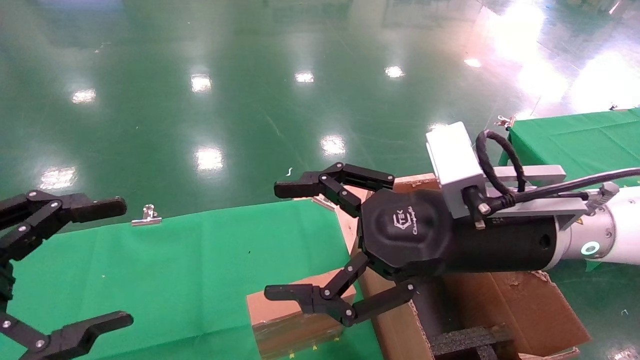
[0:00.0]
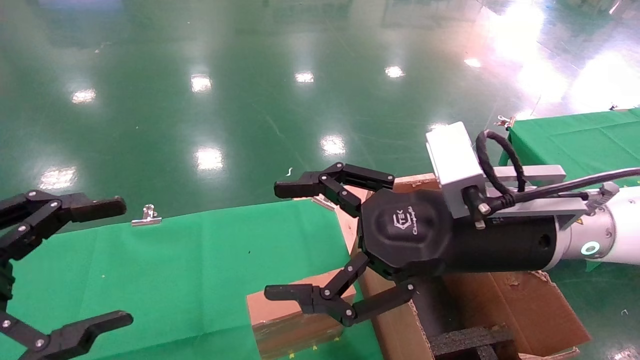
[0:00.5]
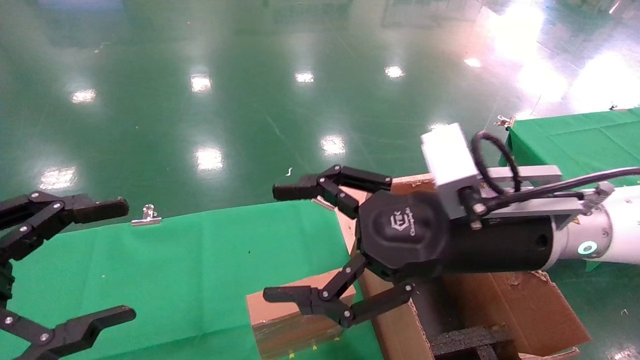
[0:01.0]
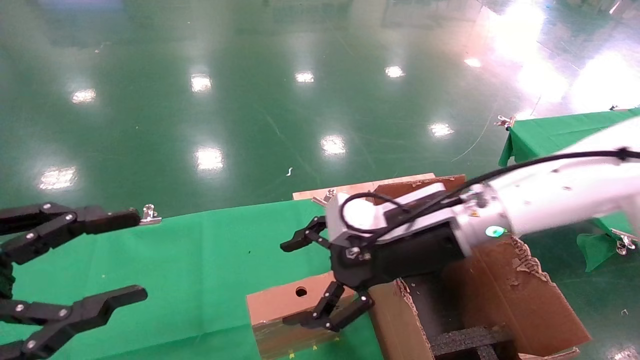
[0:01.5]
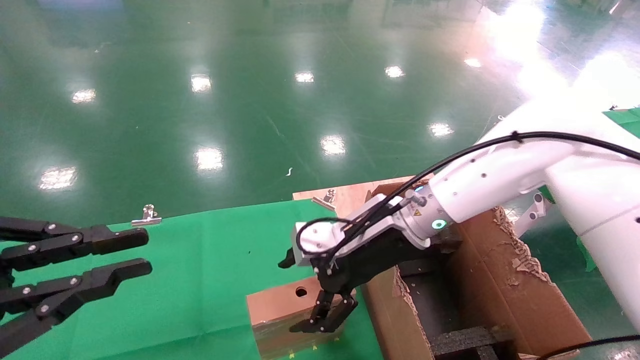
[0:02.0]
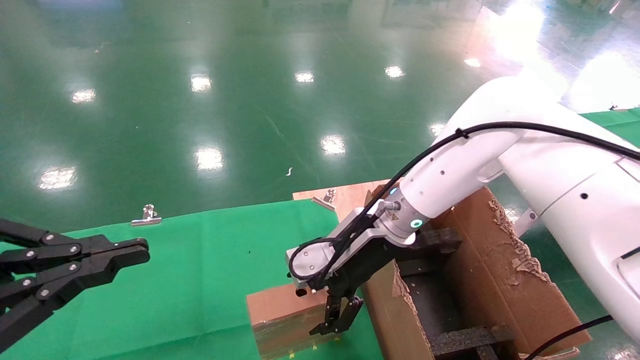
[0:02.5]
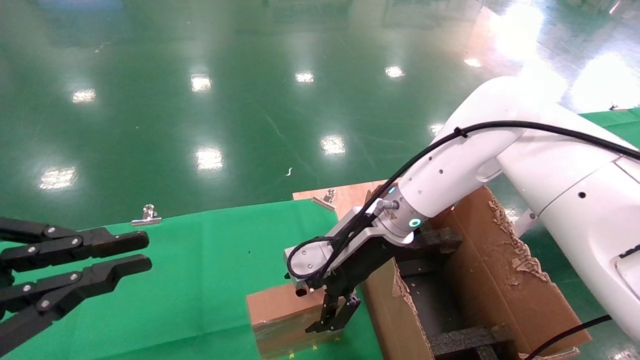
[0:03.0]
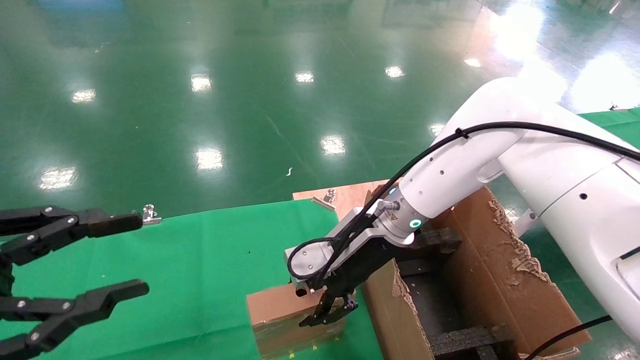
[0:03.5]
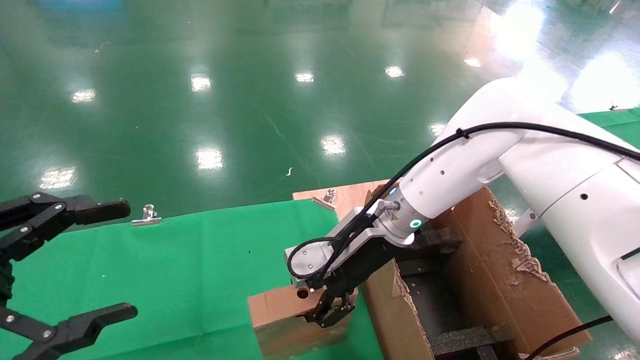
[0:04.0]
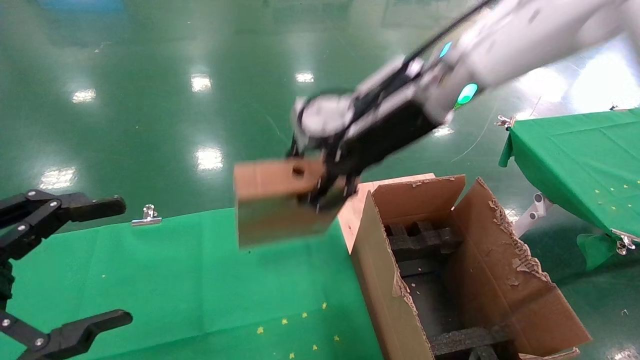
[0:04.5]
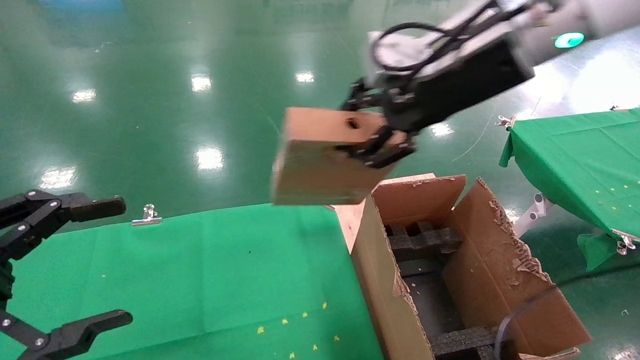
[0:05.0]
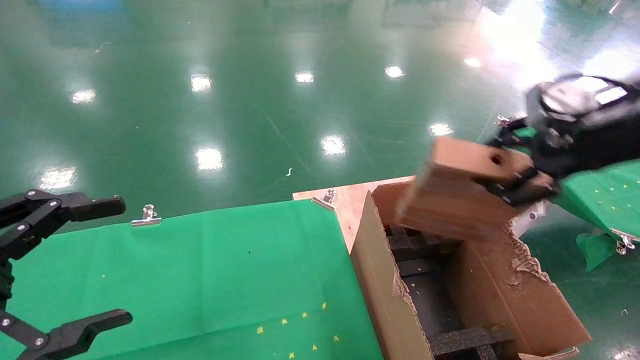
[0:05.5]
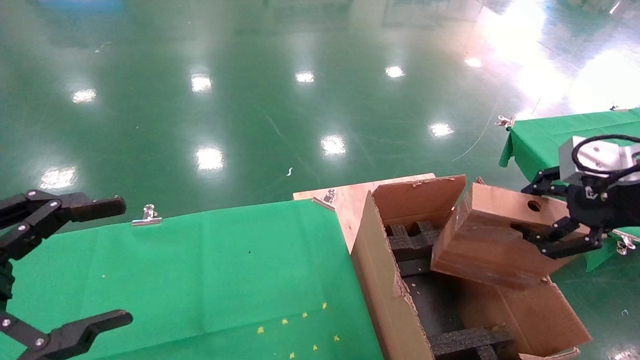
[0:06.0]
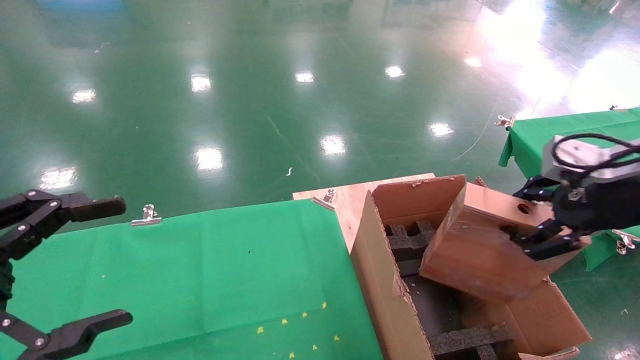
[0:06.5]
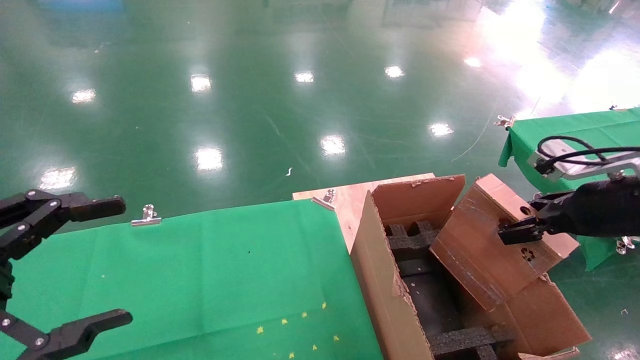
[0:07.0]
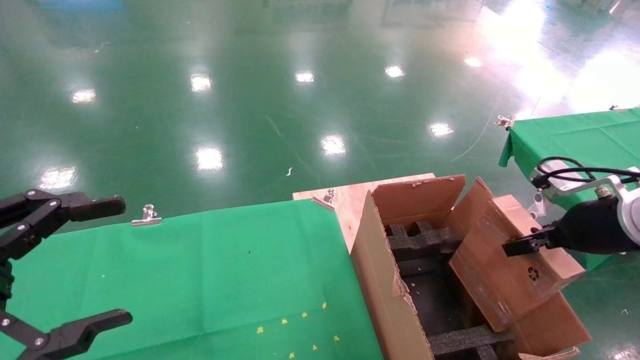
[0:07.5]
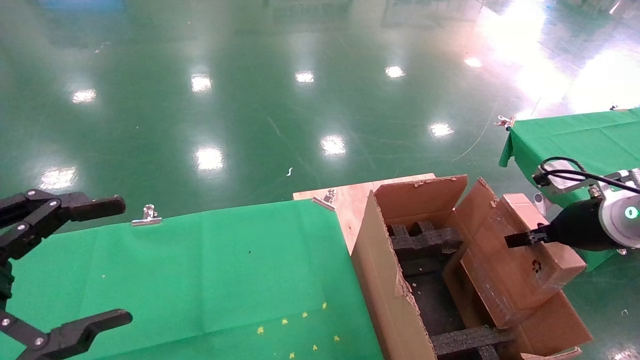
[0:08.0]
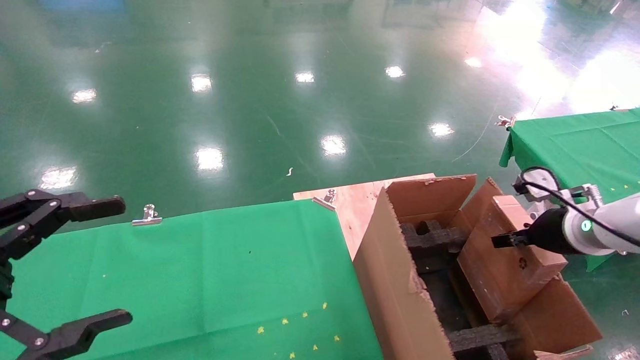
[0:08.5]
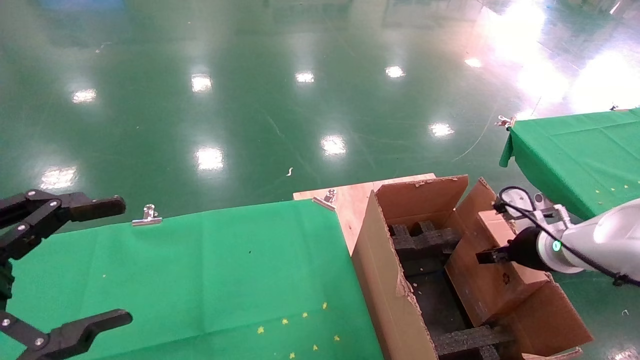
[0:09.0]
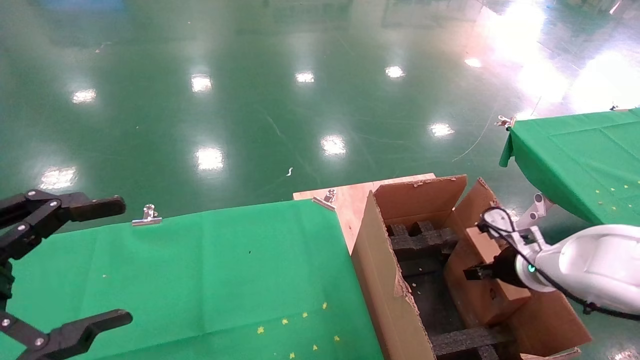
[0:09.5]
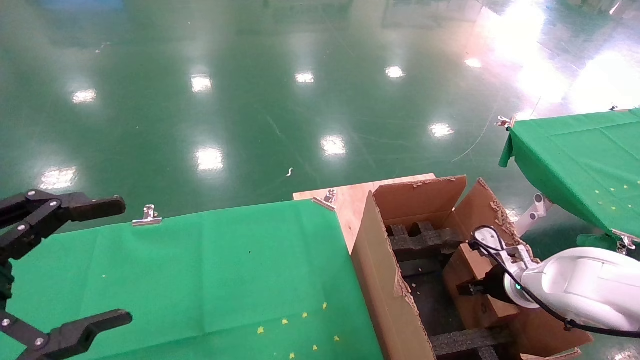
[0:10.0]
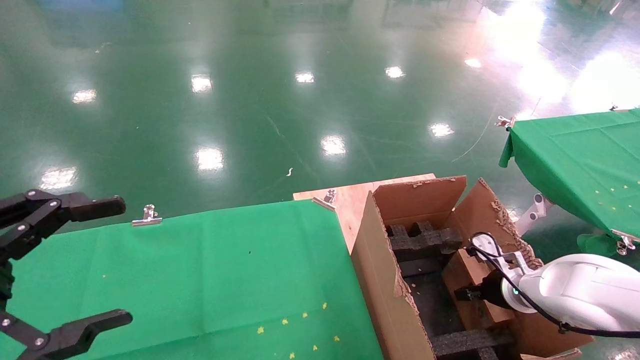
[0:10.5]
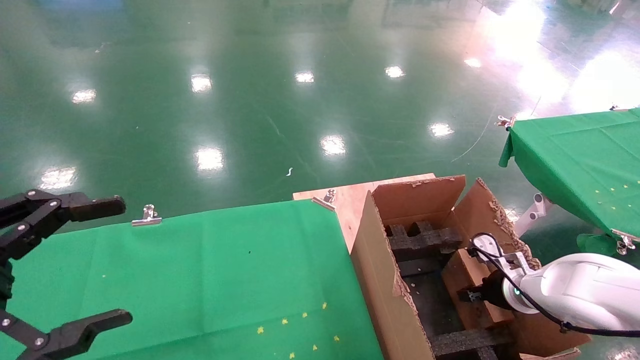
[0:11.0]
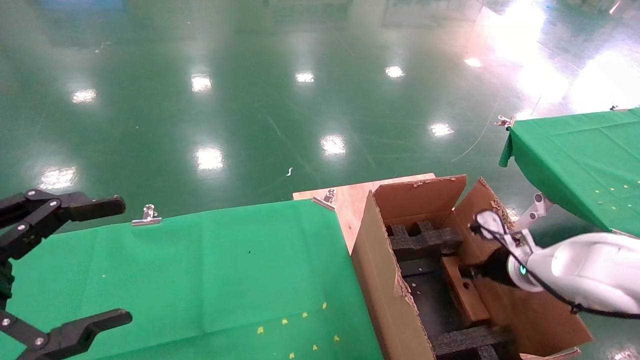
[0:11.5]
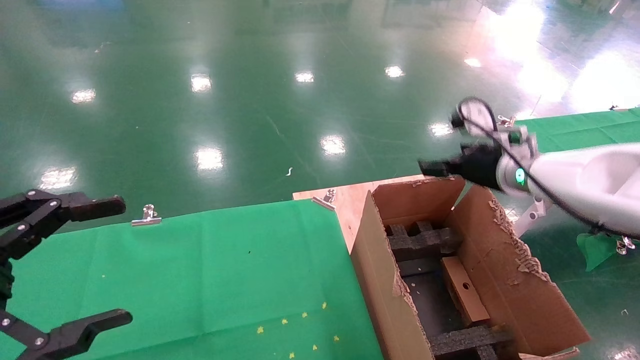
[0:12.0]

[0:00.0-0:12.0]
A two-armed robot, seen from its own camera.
Task of the whole recording: using a robotic arm to pick up a cardboard box and palace it the carton.
Step, 0:01.5 to 0:03.5: Pick up the mouse and the power cord paper box.
Step, 0:04.0 to 0:11.5: Place the mouse and the power cord paper box into the container.
0:00.0 to 0:02.0: The right gripper shifts approximately 15 cm forward, to the left and downward; the left gripper closes.
0:02.0 to 0:04.0: The left gripper opens up; the right gripper closes up.
0:04.0 to 0:06.0: The right gripper heads to the right and backward, covering roughly 35 cm.
0:06.0 to 0:08.0: The right gripper travels downward and forward by some 15 cm.
0:08.0 to 0:10.0: The right gripper shifts roughly 20 cm downward and forward.
0:10.0 to 0:12.0: The right gripper heads upward, covering some 20 cm, and opens.

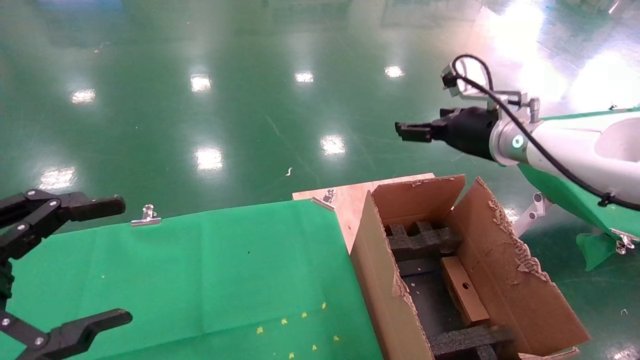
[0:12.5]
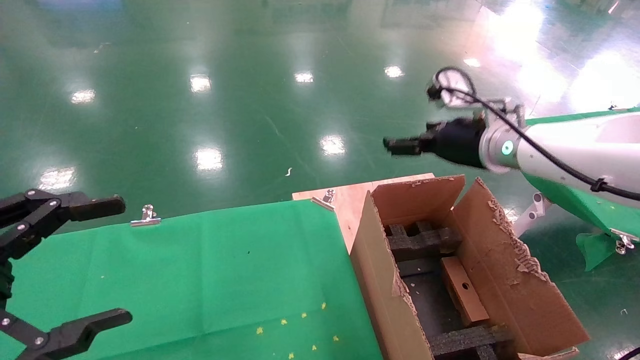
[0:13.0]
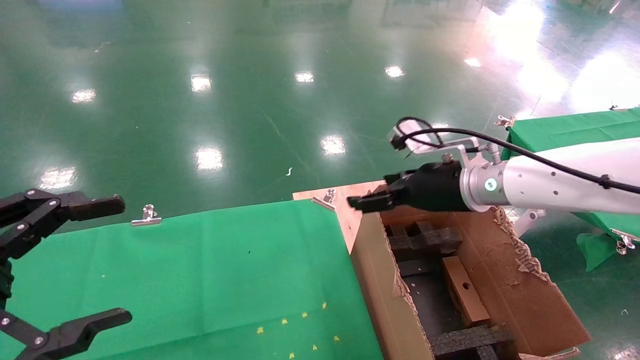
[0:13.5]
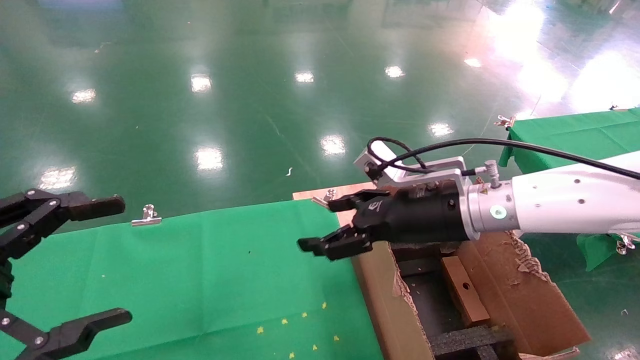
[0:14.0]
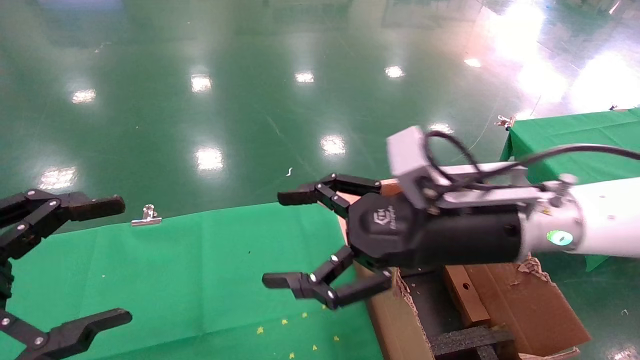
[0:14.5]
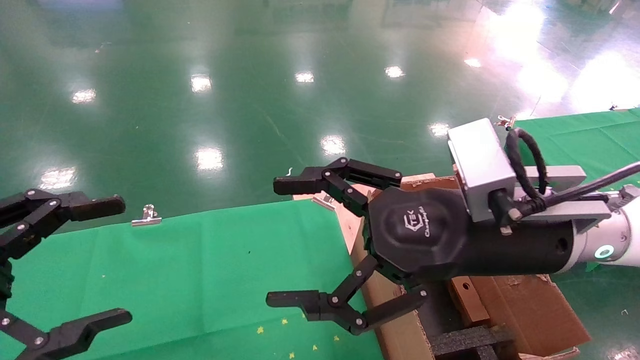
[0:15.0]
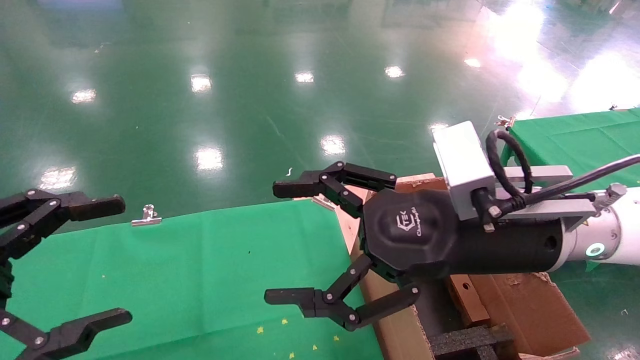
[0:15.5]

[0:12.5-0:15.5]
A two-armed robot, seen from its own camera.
Task of the whole recording: using a robotic arm to pick up a cardboard box and palace it the carton.
0:12.5 to 0:14.0: The right gripper shifts about 15 cm to the left, downward and backward.
0:14.0 to 0:15.5: The right gripper shifts about 10 cm backward.
